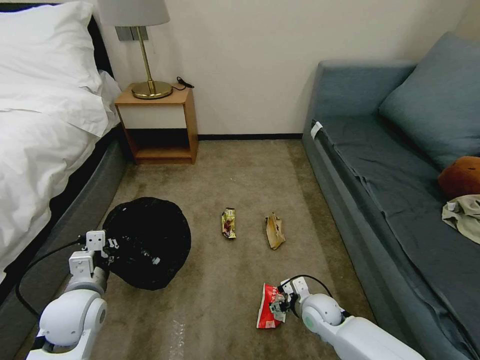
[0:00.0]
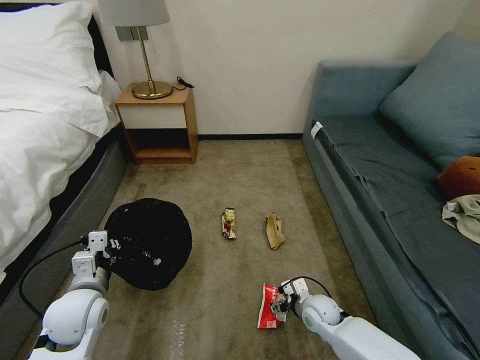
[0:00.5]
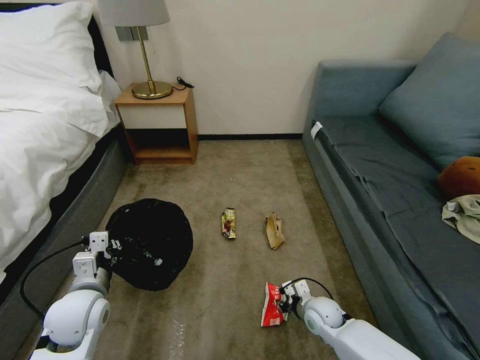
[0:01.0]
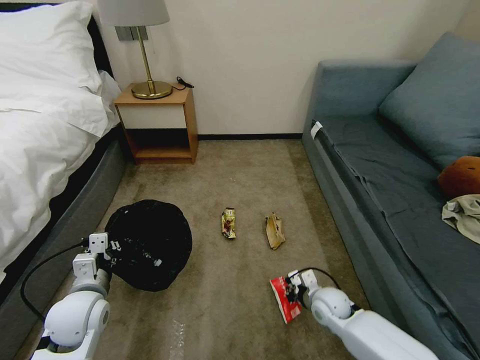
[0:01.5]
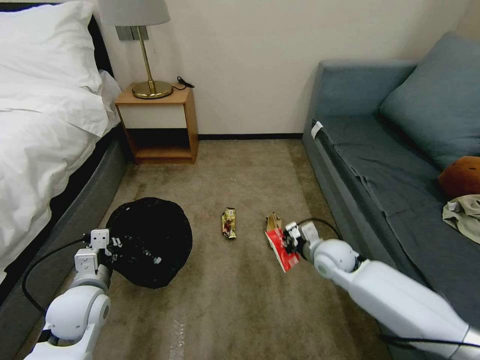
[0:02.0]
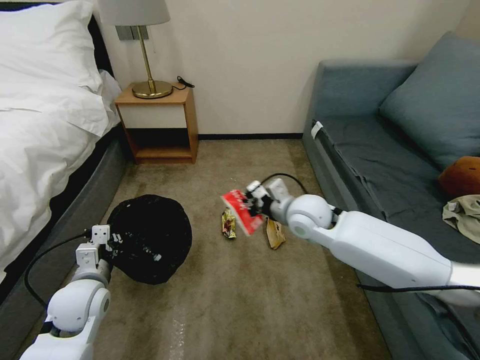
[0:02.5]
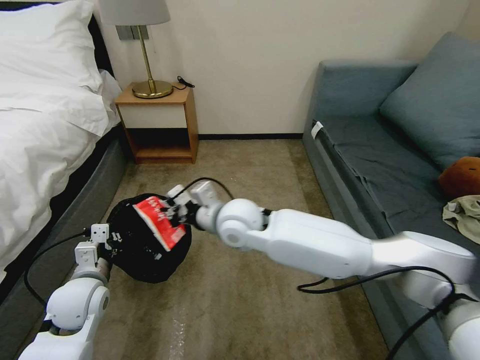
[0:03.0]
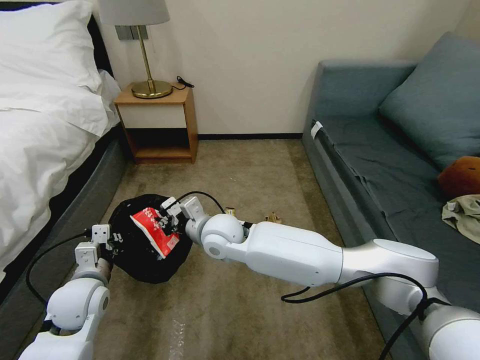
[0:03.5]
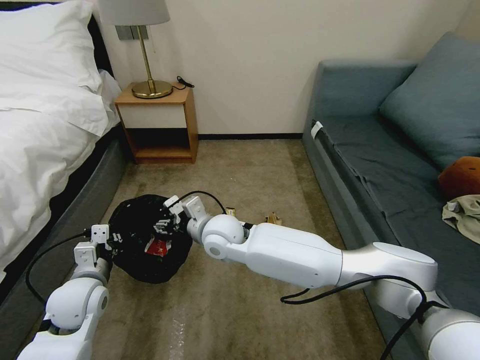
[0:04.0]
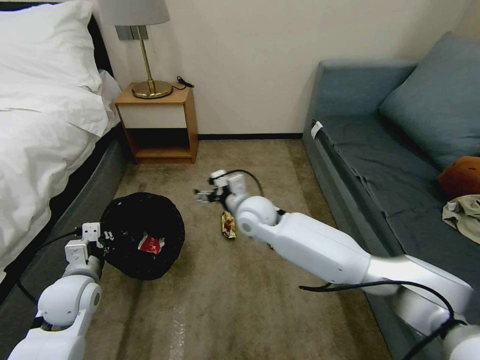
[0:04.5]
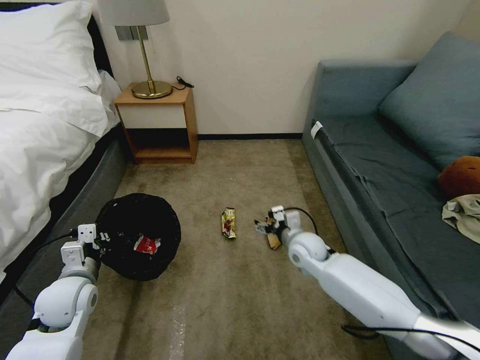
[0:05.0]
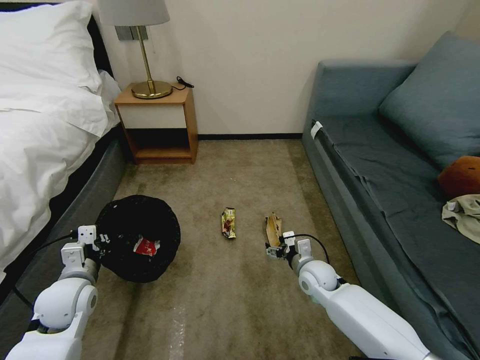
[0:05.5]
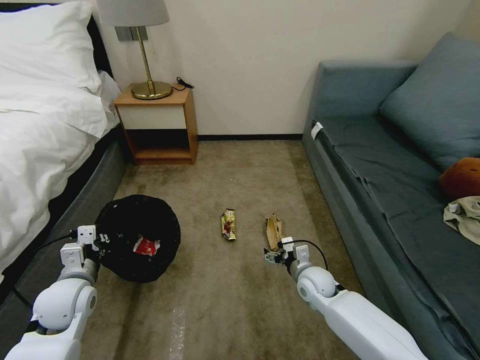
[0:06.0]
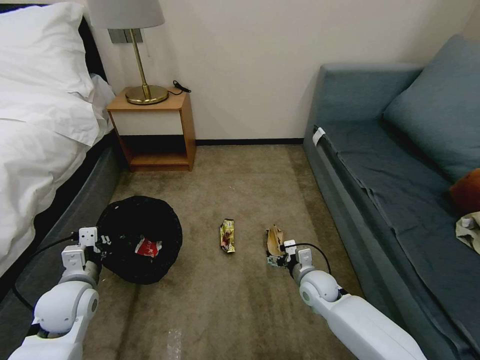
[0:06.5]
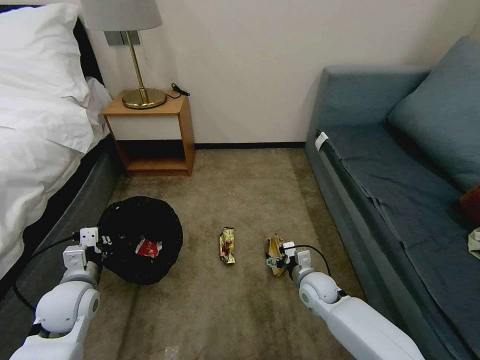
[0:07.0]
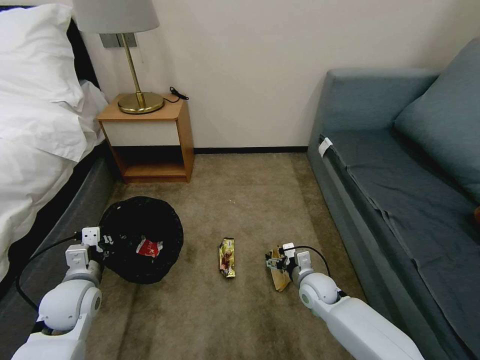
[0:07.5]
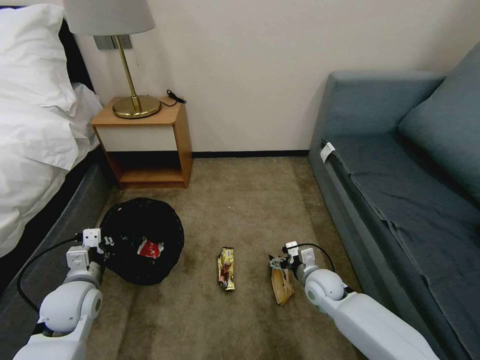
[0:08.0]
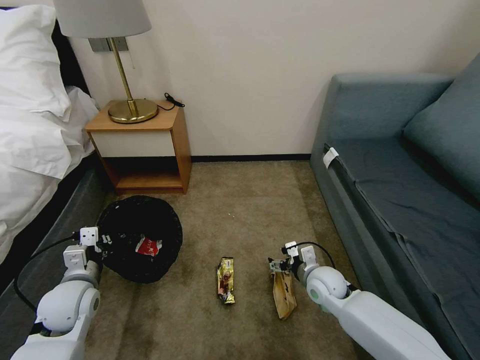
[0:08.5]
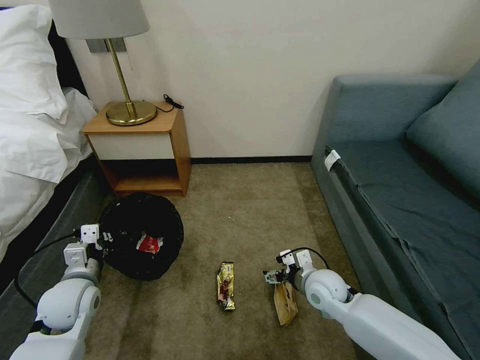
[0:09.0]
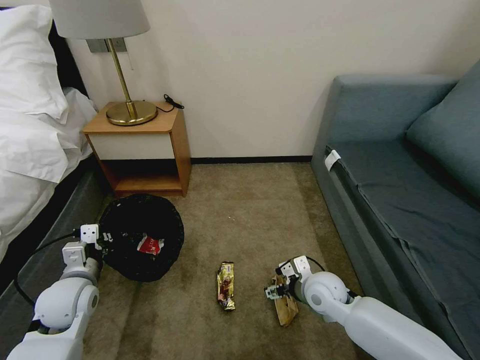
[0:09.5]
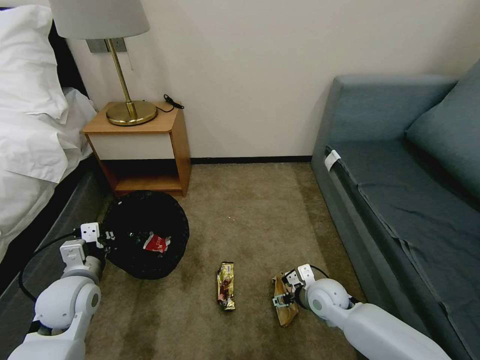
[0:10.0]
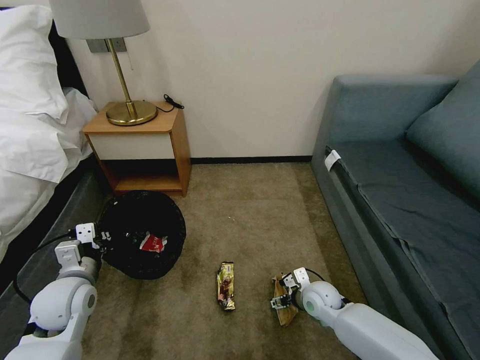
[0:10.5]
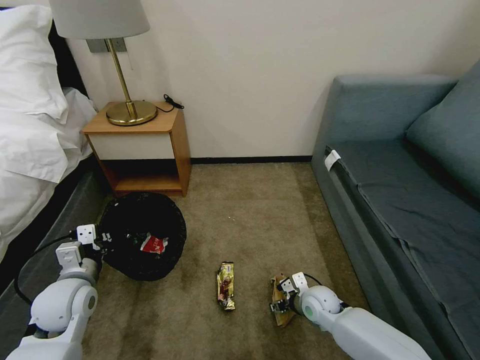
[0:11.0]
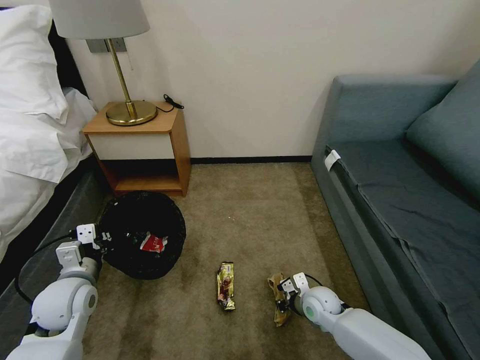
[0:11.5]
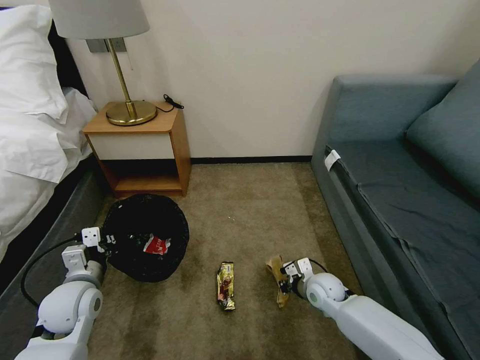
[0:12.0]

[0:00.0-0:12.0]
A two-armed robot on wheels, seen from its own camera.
Task of the whole recording: Pick up the trash bin, then pick up the garbage on the floor and place it into the trash bin.
0:00.0 to 0:02.0: The right gripper goes about 15 cm upward and forward, and closes its fingers.
0:02.0 to 0:04.0: The right gripper shifts some 30 cm to the left, and opens up.
0:04.0 to 0:06.0: The right gripper heads to the right and downward, covering about 30 cm.
0:10.0 to 0:12.0: The right gripper closes its fingers.

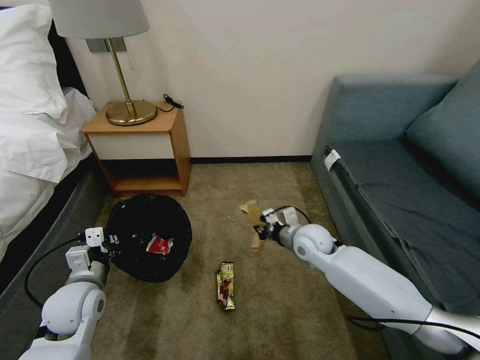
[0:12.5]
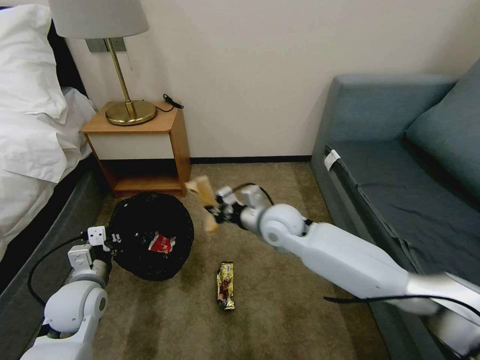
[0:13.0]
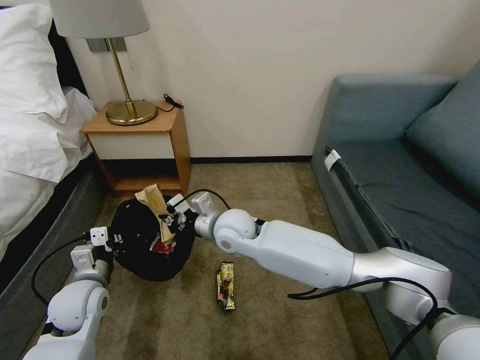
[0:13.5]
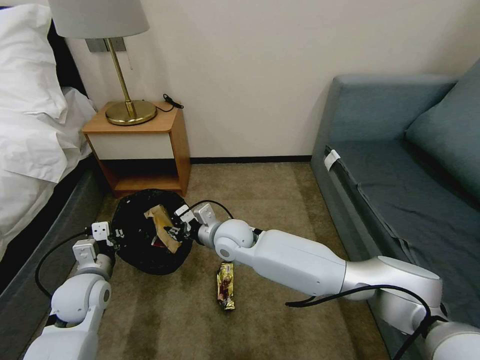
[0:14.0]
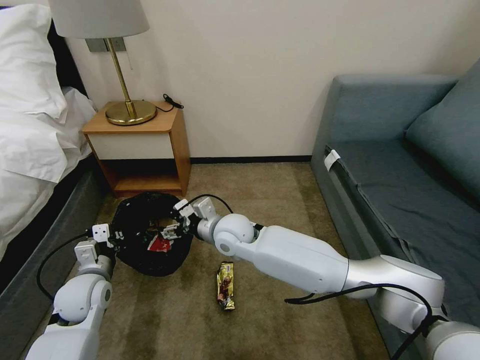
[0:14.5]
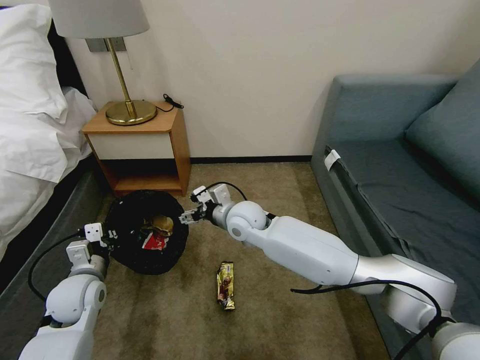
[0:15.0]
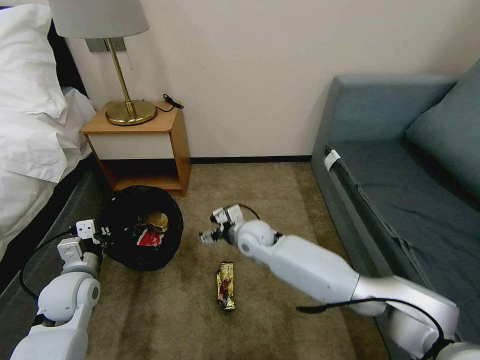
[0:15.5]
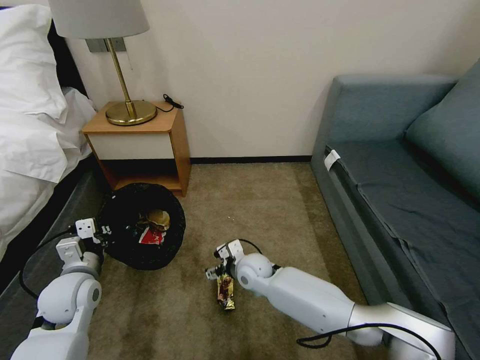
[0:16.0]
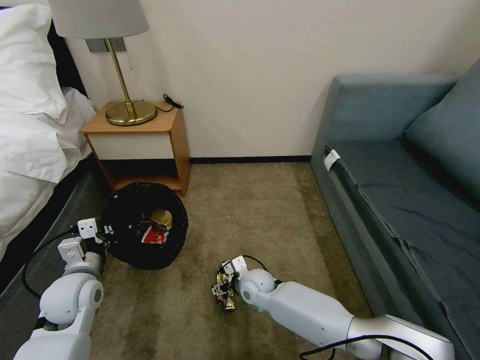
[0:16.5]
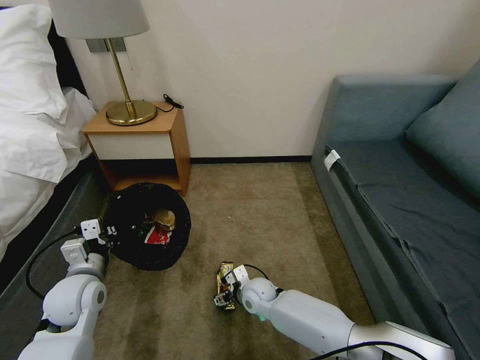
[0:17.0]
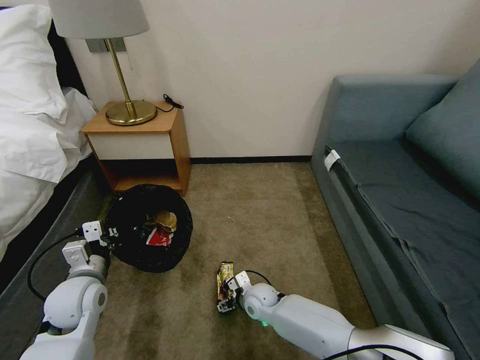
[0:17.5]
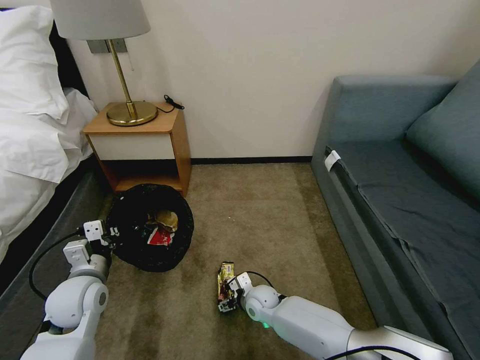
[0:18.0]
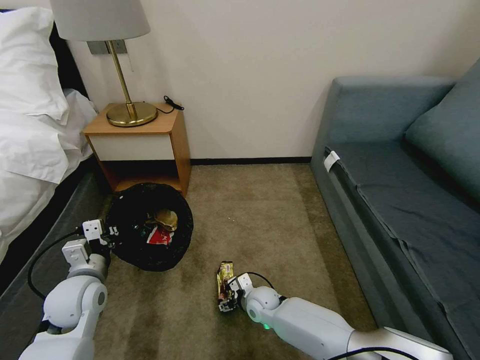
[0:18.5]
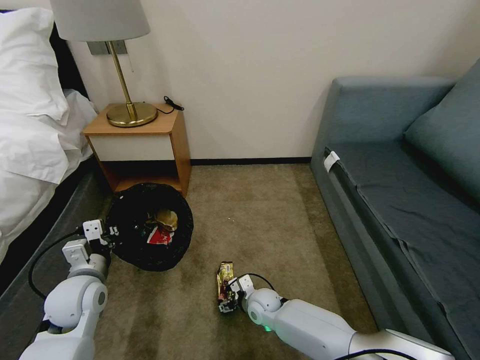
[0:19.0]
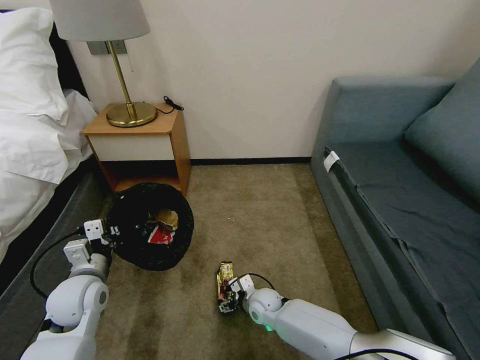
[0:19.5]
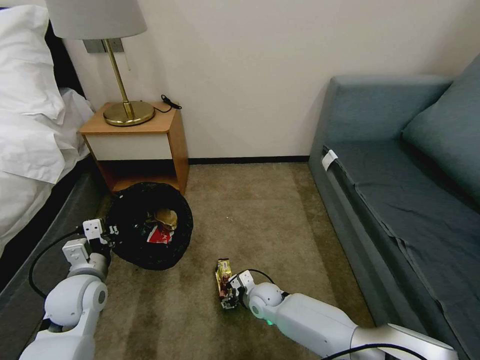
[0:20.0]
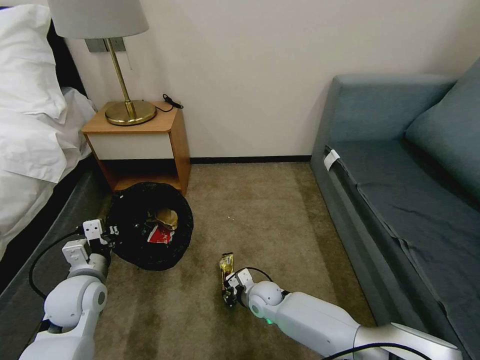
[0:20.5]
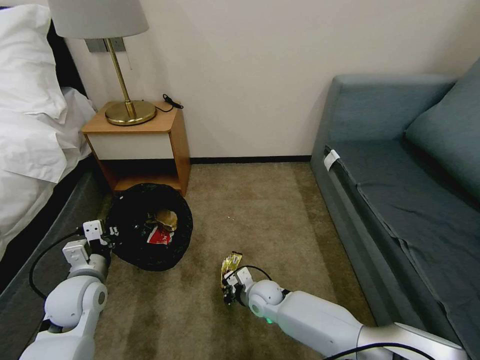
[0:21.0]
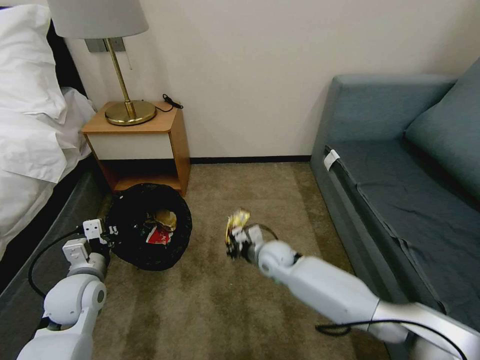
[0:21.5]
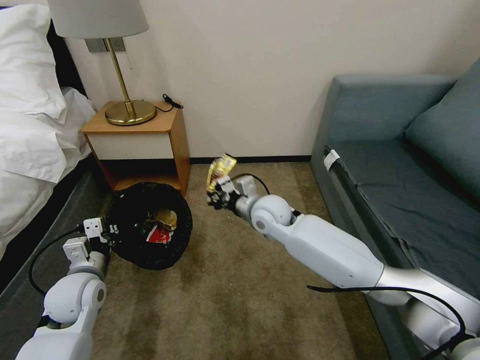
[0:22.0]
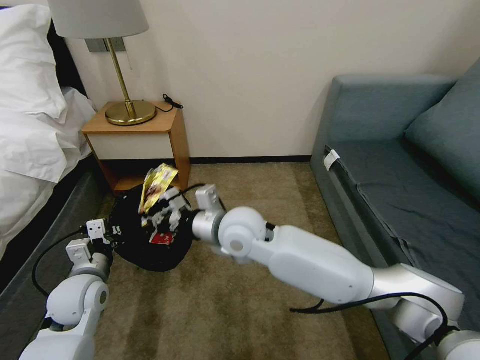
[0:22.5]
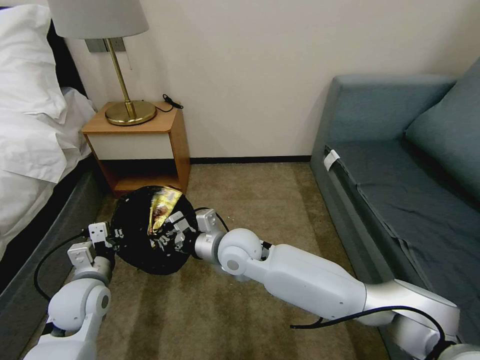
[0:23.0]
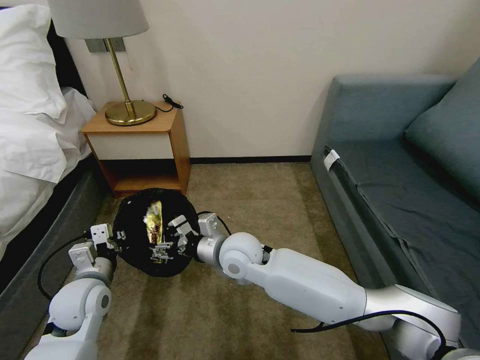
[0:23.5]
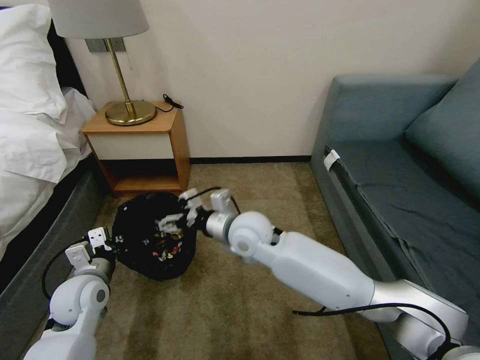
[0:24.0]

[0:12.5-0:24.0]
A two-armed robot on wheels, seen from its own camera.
Task of the whole recording: Pick up the trash bin, then pick up the garbage on the floor and place it into the trash bin.
0:12.5 to 0:14.5: The right gripper travels to the left by about 20 cm, and opens its fingers.
0:14.5 to 0:16.5: The right gripper heads downward, covering some 20 cm.
0:16.5 to 0:18.5: The right gripper goes roughly 5 cm downward.
0:18.5 to 0:20.0: The two grippers keep their place.
0:20.0 to 0:22.0: The right gripper goes about 30 cm upward, and closes.
0:22.0 to 0:24.0: The right gripper goes about 5 cm backward, and opens.

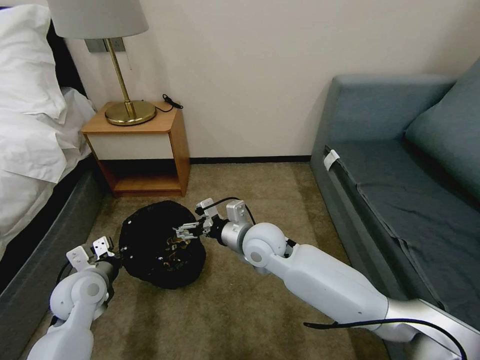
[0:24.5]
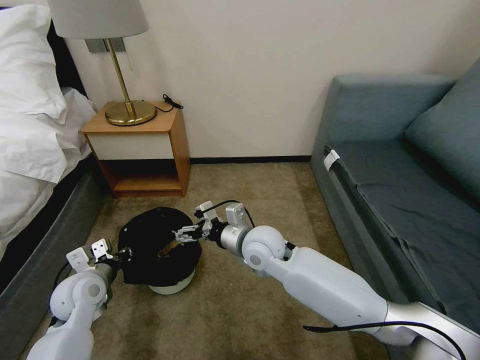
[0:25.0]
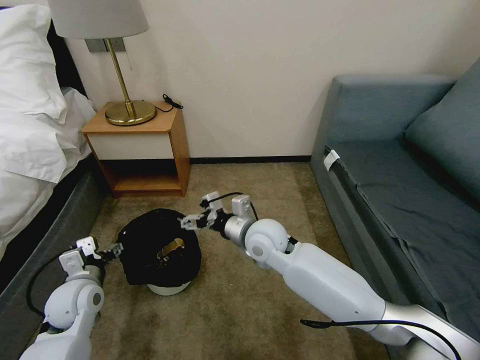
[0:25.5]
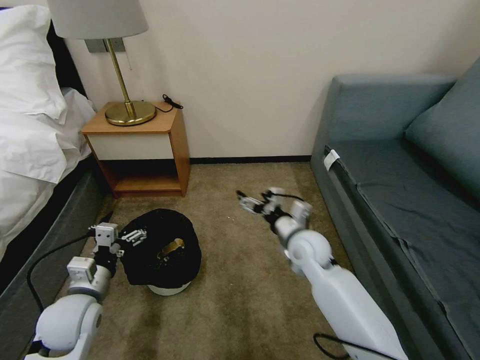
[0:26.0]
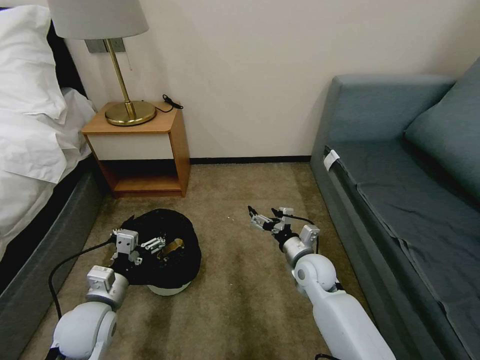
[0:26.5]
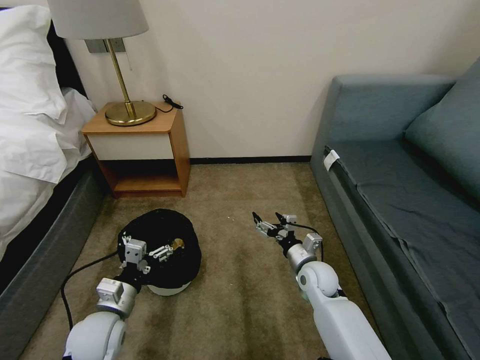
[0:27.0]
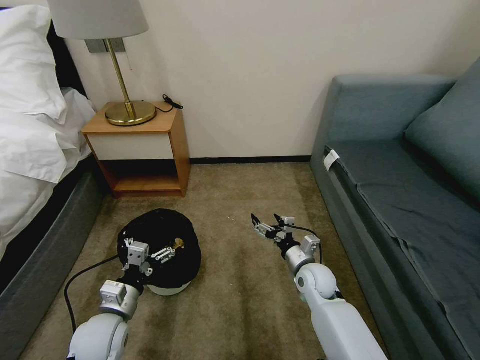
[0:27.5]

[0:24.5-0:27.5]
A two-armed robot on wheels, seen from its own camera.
Task of the whole recording: Pick up the trash bin, then pick up the garbage on the floor and place it into the trash bin.
0:24.5 to 0:26.0: The left gripper heads backward, covering about 5 cm, and opens. Meanwhile the right gripper goes about 15 cm to the right and downward.
0:26.0 to 0:27.5: The right gripper shifts some 10 cm downward, while the left gripper is displaced downward by roughly 5 cm.
